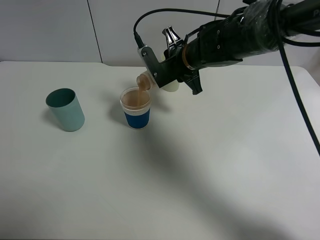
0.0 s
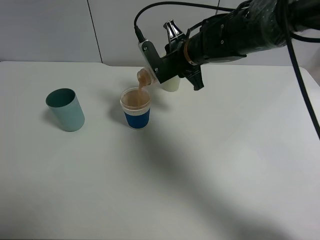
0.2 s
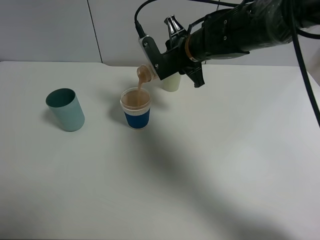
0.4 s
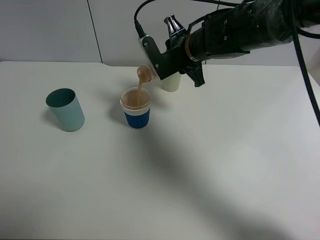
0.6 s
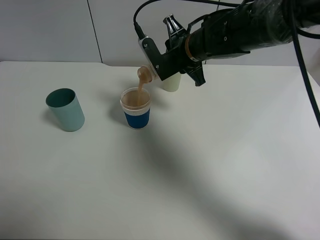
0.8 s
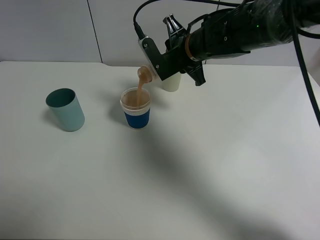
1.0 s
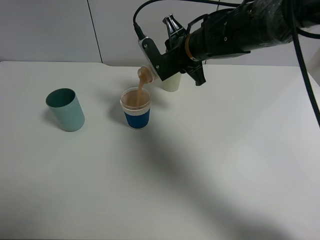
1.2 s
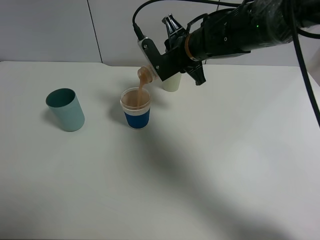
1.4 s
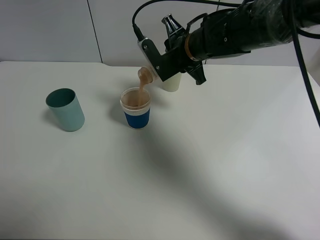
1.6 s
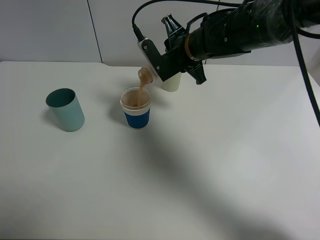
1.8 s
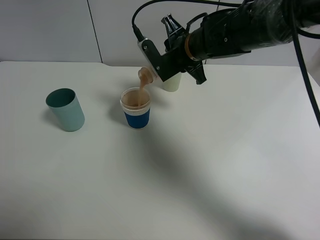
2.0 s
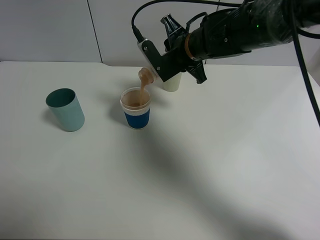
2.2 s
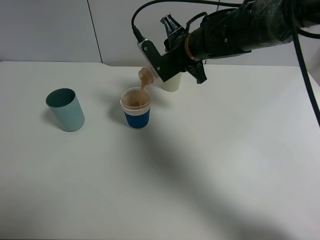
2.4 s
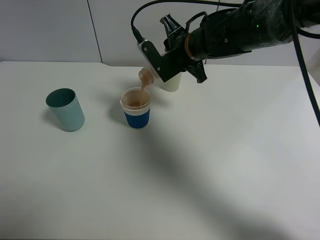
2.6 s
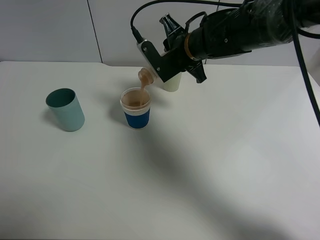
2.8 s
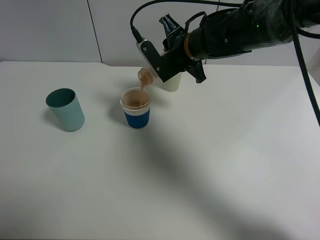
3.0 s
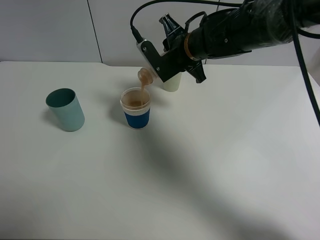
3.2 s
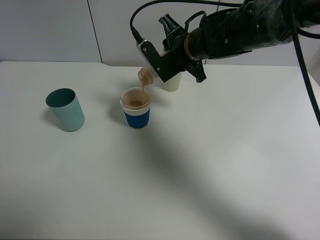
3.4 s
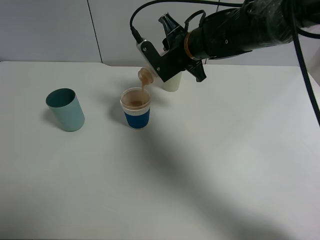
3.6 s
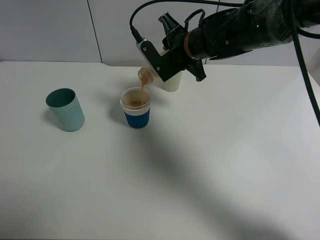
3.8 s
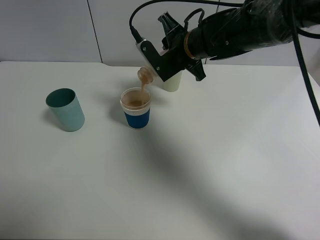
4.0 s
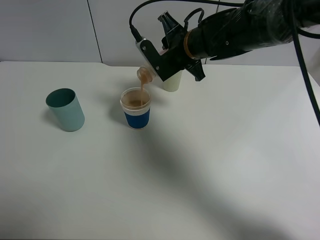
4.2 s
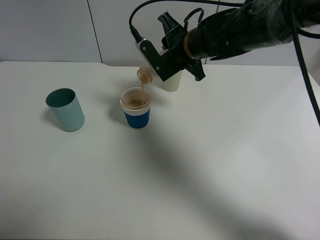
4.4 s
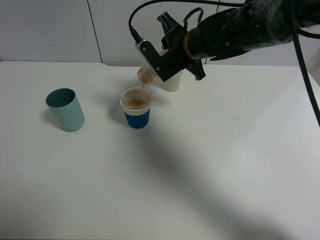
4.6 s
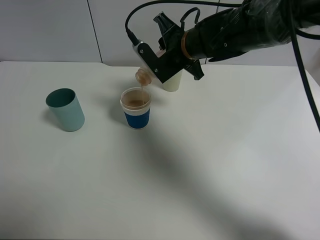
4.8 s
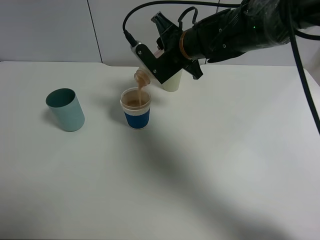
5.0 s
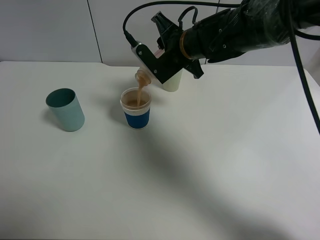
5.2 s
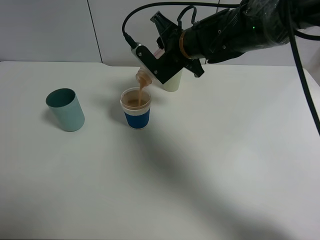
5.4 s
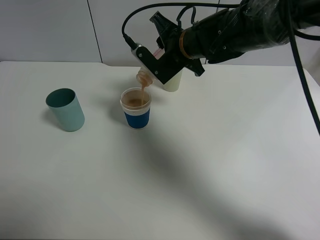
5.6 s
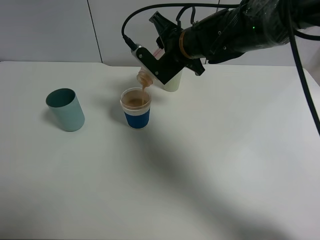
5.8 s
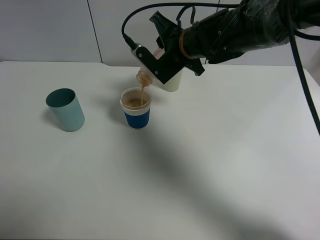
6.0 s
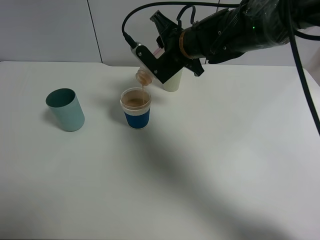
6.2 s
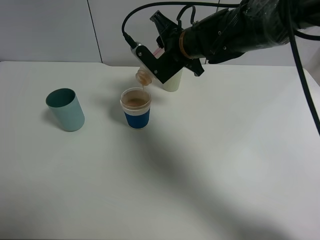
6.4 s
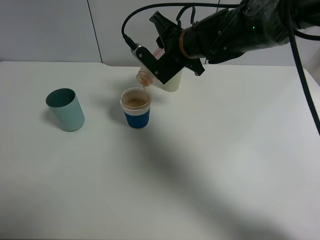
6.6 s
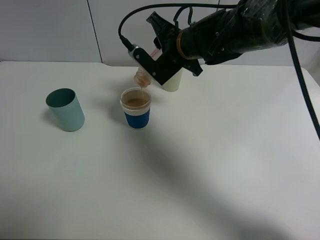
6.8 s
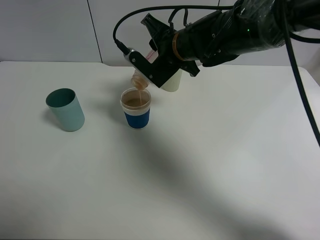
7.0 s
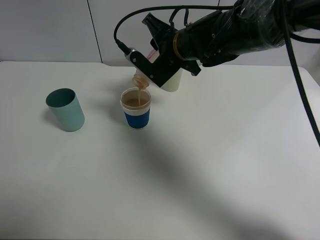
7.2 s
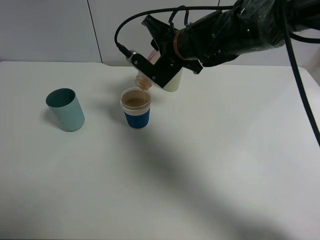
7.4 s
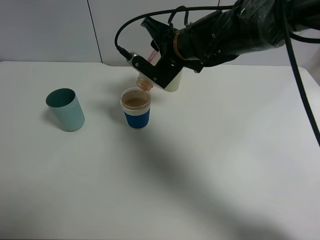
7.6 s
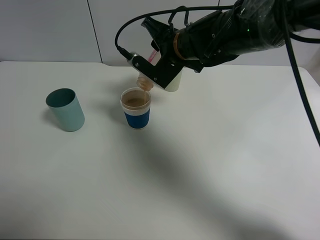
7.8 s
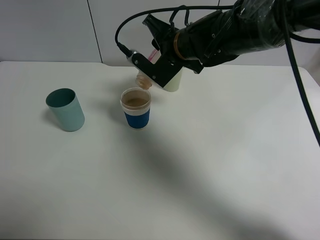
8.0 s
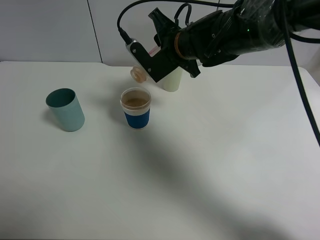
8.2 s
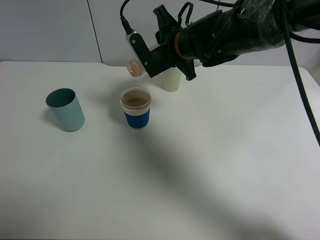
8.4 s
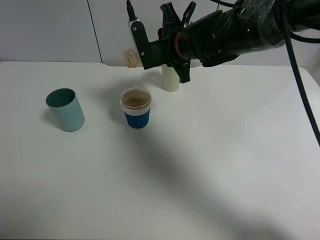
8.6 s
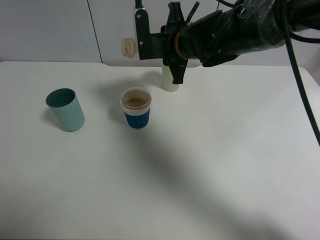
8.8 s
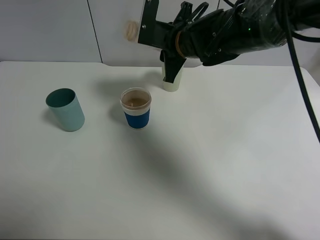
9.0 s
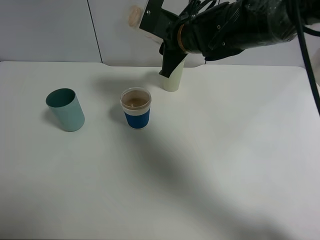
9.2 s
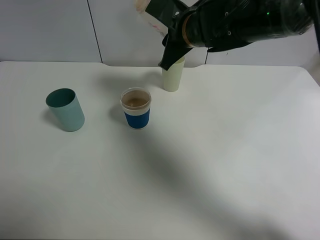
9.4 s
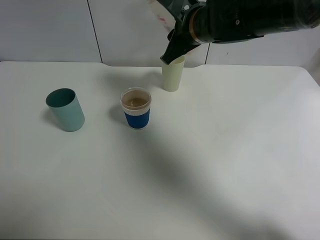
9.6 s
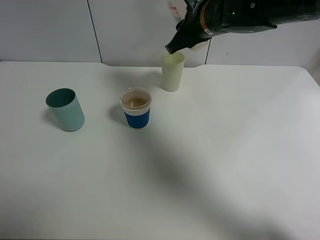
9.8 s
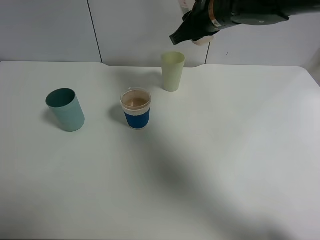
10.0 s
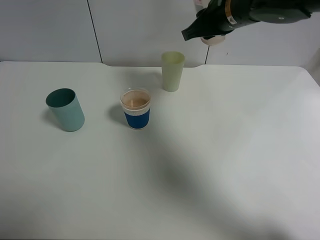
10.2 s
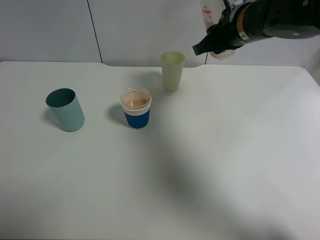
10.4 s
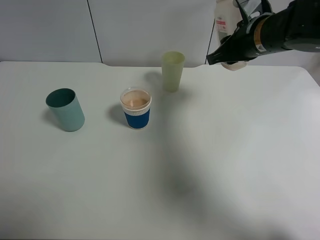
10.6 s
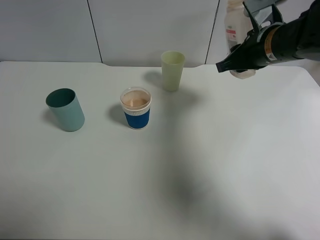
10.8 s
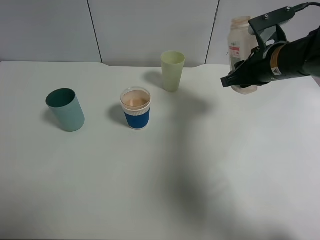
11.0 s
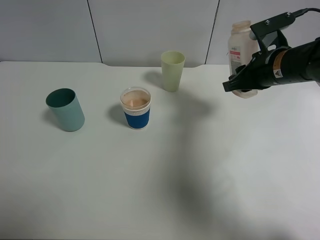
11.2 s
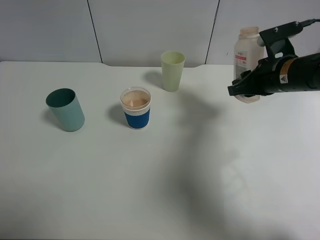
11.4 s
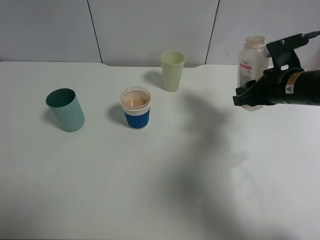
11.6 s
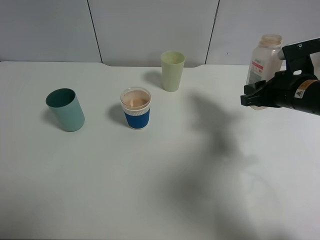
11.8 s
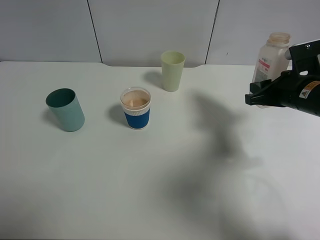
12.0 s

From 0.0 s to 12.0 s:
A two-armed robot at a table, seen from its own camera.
Task of the whole recording: use a clamp to hold the bottle of the drink, pour the beverage into a random cup, then clamp the cup containing the drink and pour the drink into another random cup.
Step, from 0.0 s to 8.4 s: Pour the drink into the paper cup with right gripper.
From 0.0 s to 1.6 s: The grippers stay close to where they were, moving slightly.
From 1.6 s to 3.0 s: Both grippers stay put.
From 3.0 s to 4.4 s: Neither gripper changes place.
From 4.4 s to 7.6 s: The grippers move only a little.
From 9.0 s to 10.4 s: The right gripper travels to the right by roughly 10 cm.
From 10.4 s to 12.0 s: The right gripper moves to the right, downward and backward, roughly 15 cm.

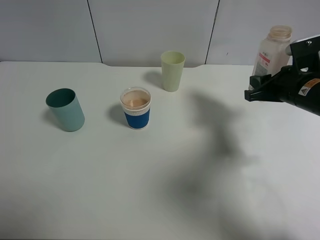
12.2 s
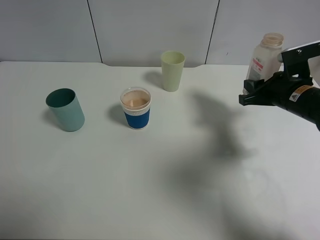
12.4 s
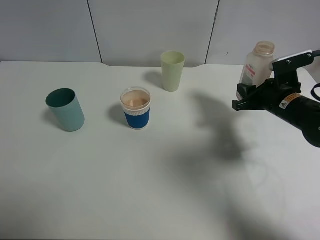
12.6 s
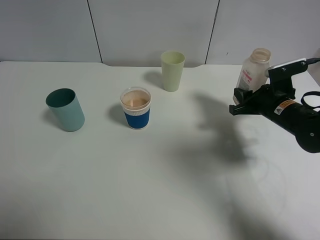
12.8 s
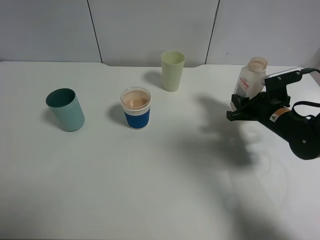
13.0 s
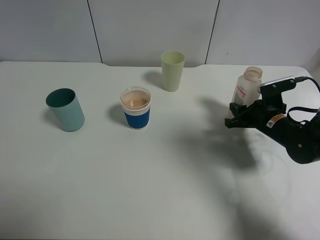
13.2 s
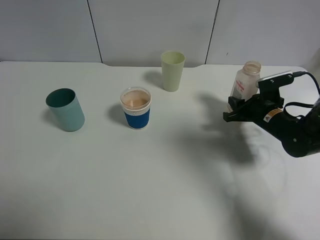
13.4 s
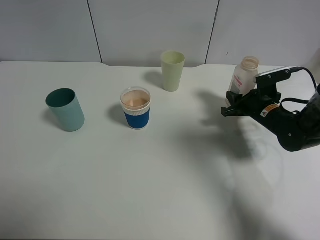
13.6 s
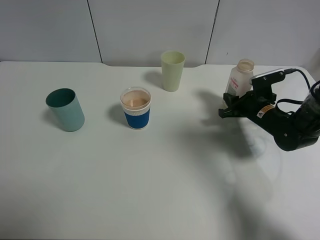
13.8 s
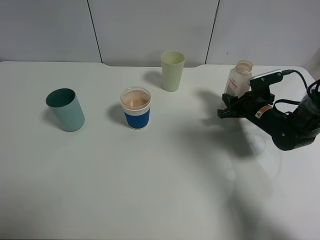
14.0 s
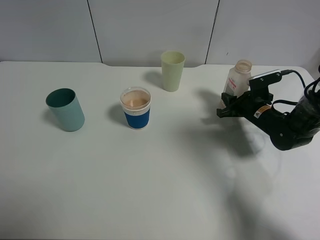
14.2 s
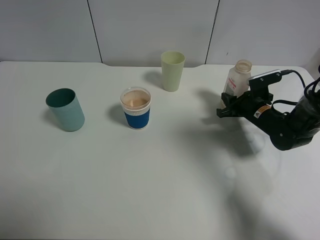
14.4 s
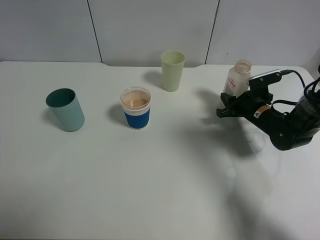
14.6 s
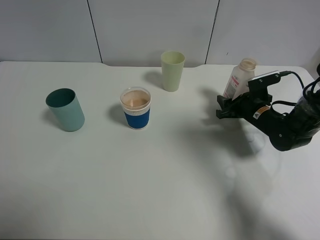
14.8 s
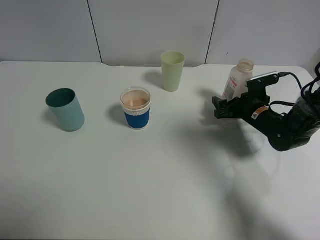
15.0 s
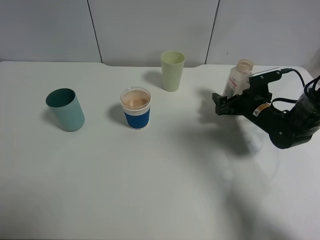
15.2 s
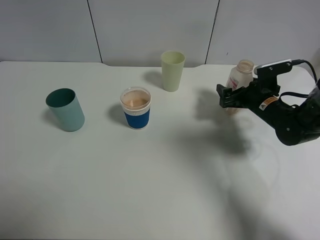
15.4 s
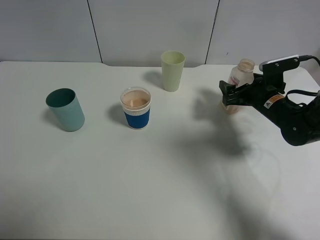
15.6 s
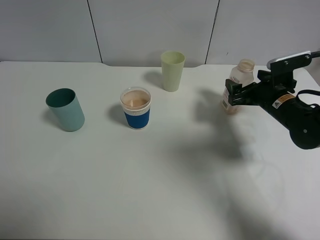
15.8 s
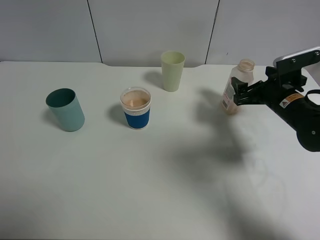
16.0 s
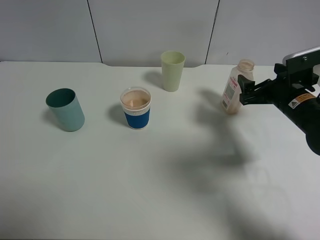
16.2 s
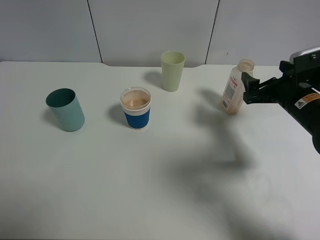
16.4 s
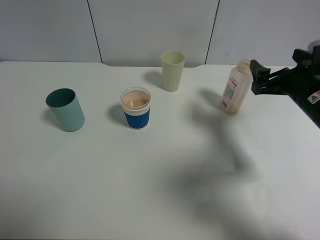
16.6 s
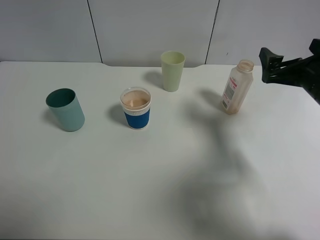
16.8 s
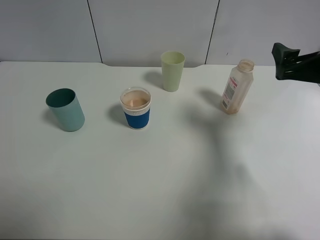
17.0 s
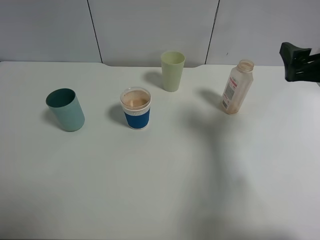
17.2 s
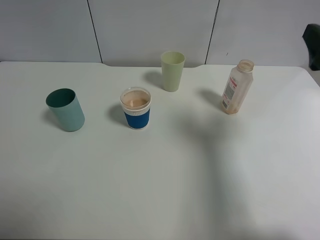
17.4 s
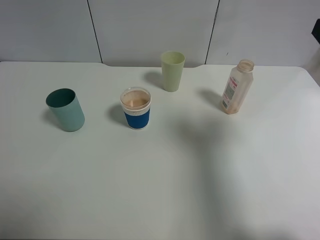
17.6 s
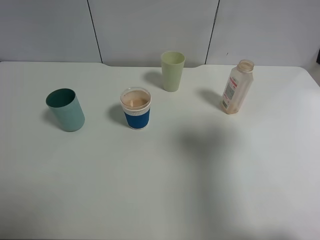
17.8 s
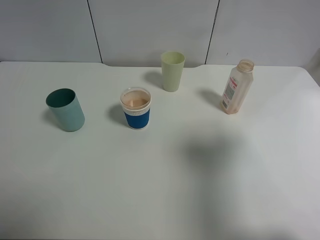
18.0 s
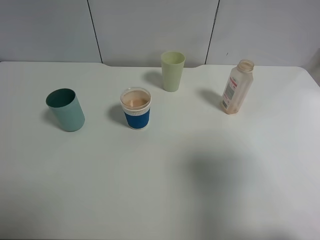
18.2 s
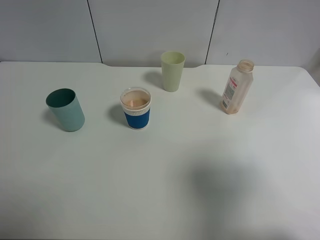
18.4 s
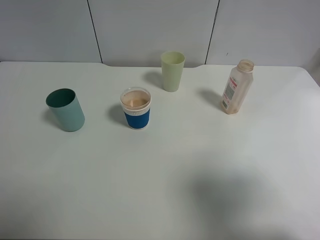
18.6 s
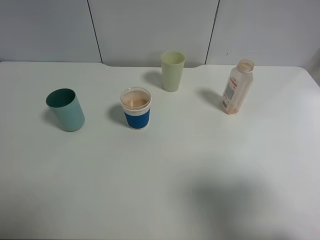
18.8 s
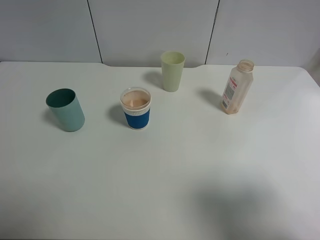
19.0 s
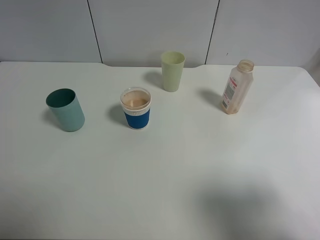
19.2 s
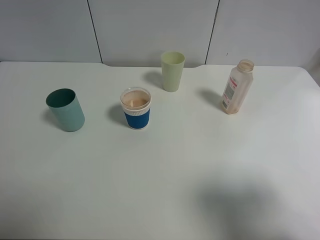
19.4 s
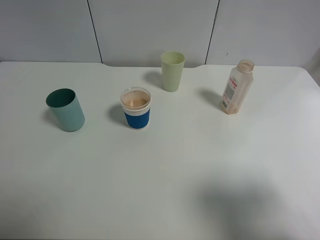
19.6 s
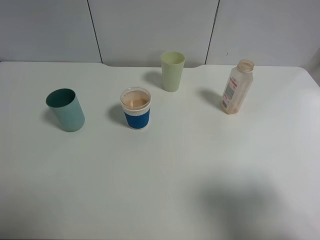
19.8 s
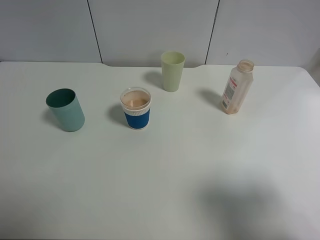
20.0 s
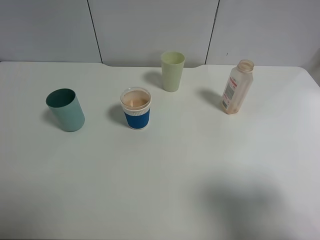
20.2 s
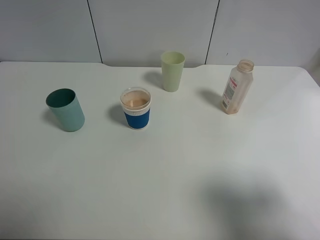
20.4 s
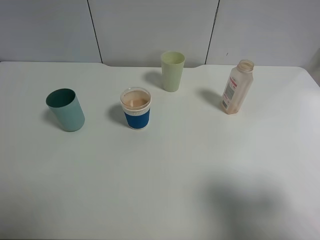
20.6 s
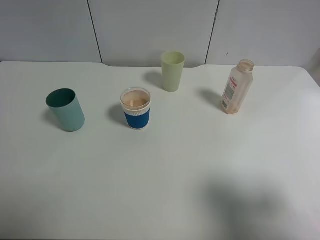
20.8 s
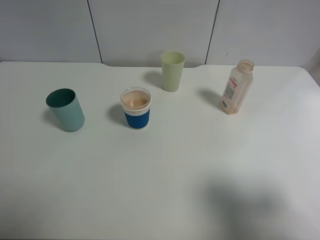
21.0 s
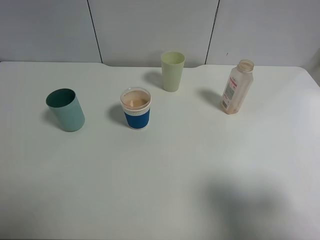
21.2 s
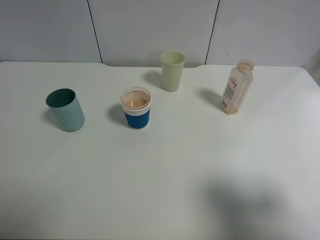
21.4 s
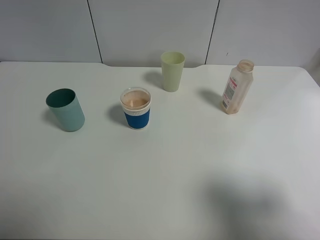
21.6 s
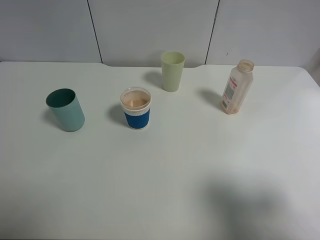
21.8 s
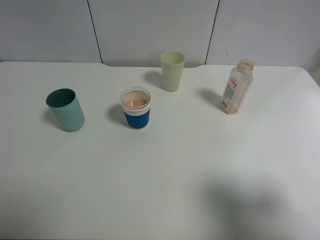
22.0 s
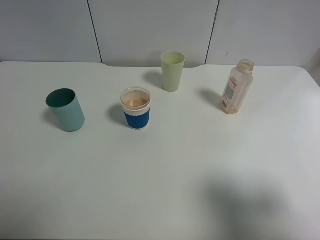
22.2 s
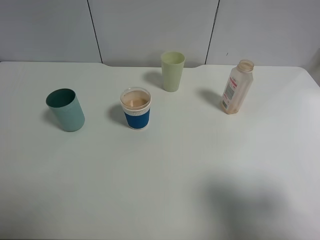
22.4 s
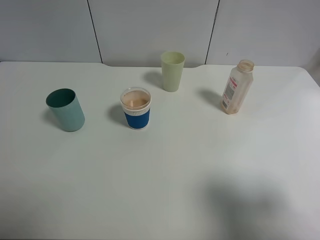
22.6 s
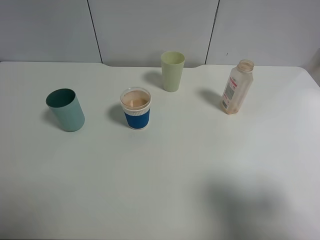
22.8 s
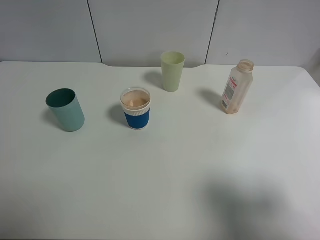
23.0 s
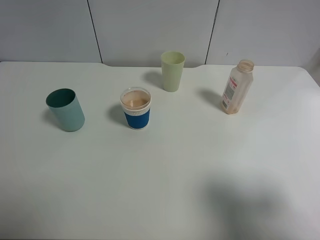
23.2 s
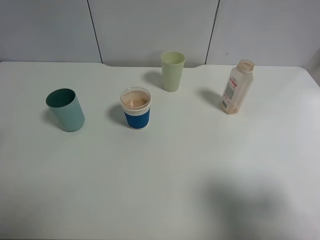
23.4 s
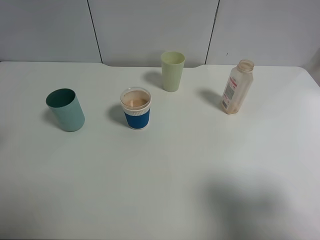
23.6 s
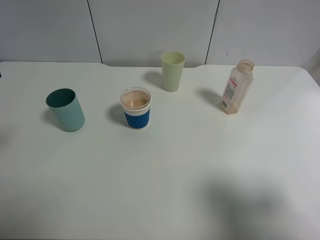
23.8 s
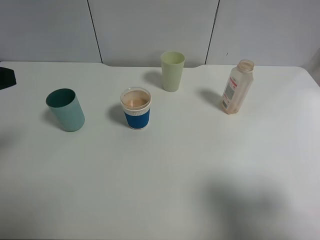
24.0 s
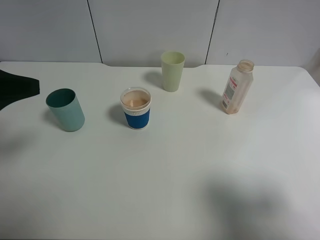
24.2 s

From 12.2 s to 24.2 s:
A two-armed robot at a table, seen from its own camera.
Task of the whole recording: use a clamp to hold the bottle of the drink, pour the beverage into a random cup, then clamp the cup containing the drink and pour the drink into another random cup.
Step, from 12.2 s to 14.8 s: Place the drink bottle on the table with right gripper.
From 12.2 s to 13.8 s: The right gripper goes about 15 cm downward and forward.
From 13.8 s to 15.2 s: The right gripper opens its fingers.
From 15.2 s to 16.6 s: The right gripper heads upward and backward, covering some 15 cm.
From 16.6 s to 18.2 s: The right gripper moves backward and upward, some 25 cm.
From 18.2 s to 19.8 s: The right gripper heads backward, covering roughly 10 cm.
From 21.2 s to 22.6 s: The two grippers keep their place.
From 22.6 s to 24.2 s: The left gripper goes some 15 cm forward.
